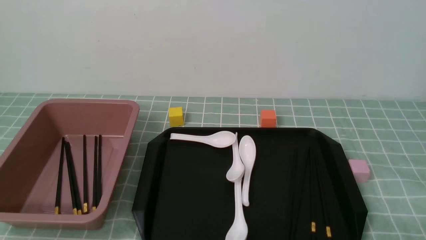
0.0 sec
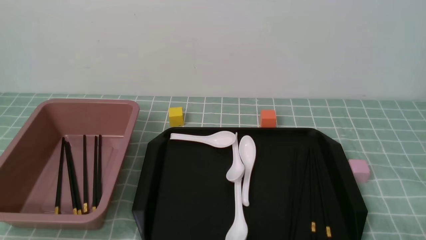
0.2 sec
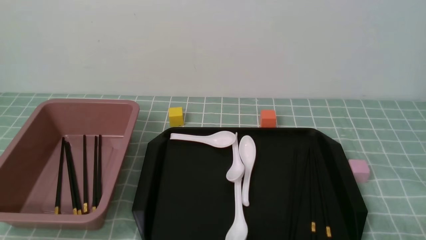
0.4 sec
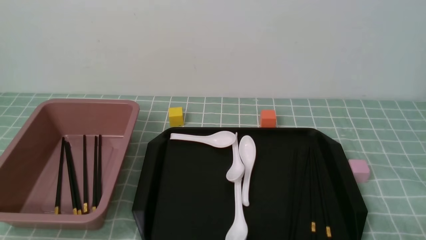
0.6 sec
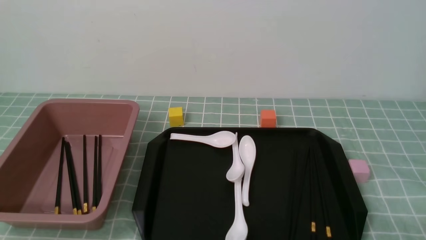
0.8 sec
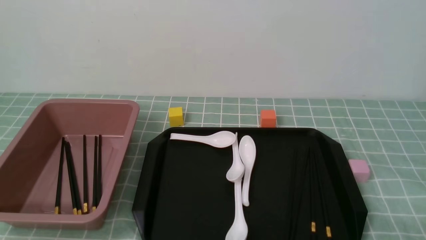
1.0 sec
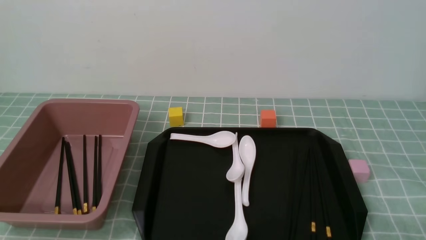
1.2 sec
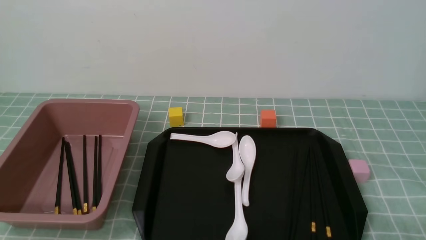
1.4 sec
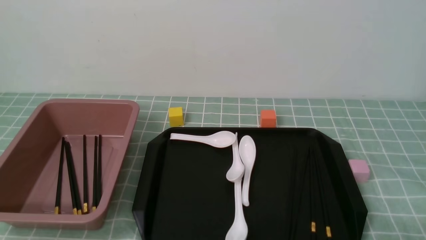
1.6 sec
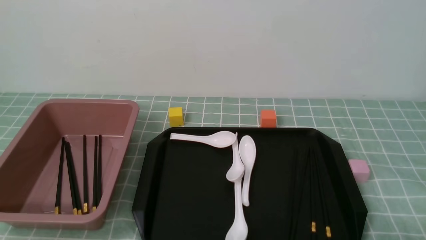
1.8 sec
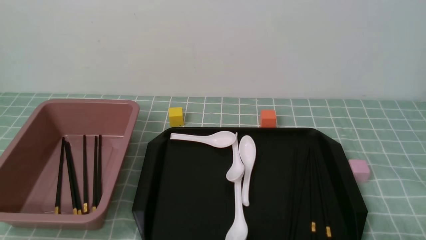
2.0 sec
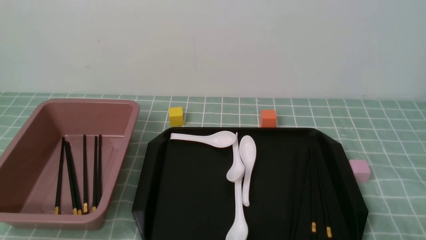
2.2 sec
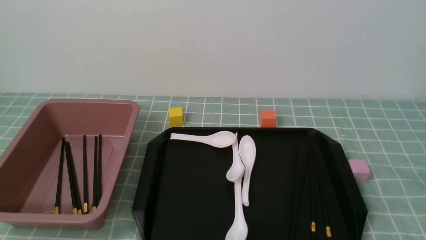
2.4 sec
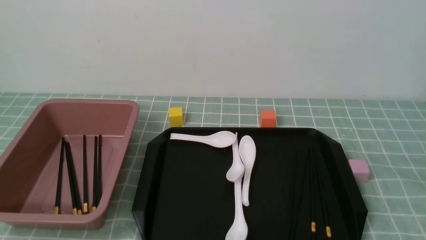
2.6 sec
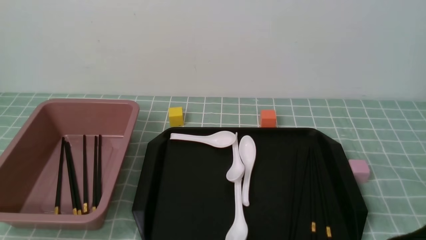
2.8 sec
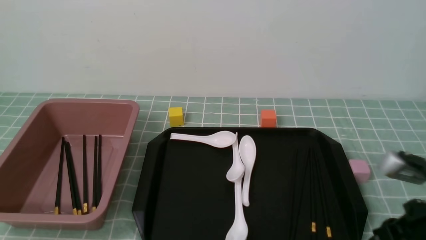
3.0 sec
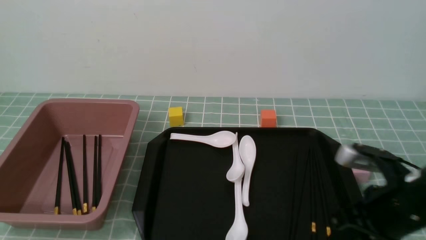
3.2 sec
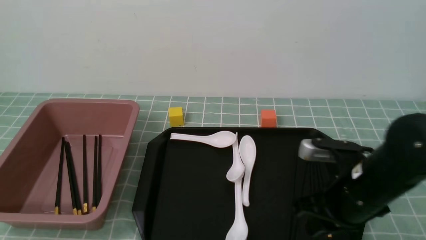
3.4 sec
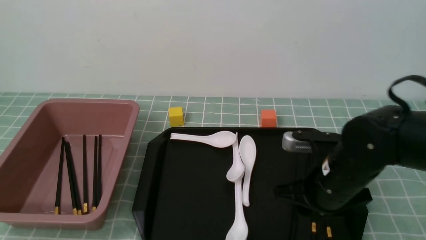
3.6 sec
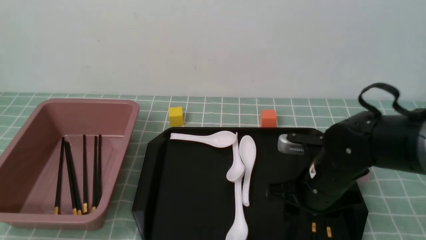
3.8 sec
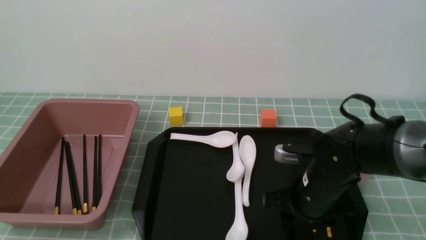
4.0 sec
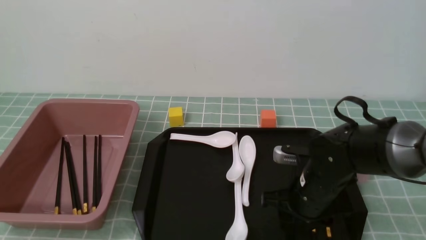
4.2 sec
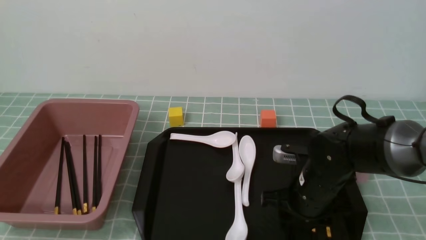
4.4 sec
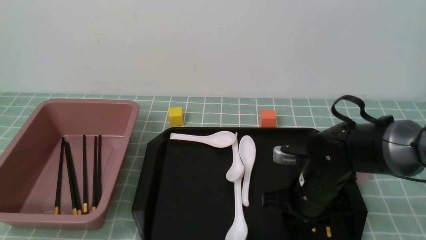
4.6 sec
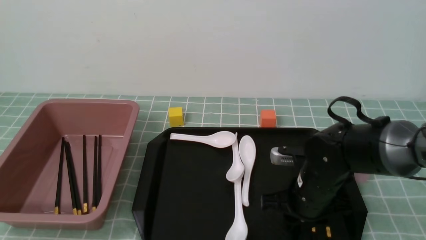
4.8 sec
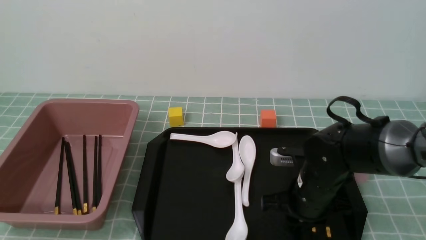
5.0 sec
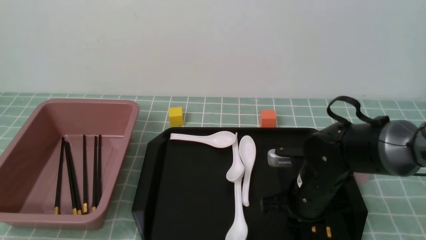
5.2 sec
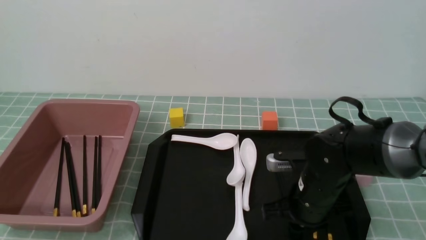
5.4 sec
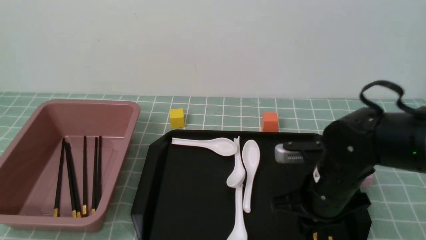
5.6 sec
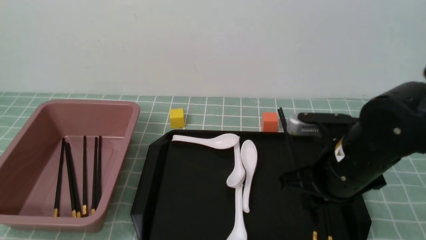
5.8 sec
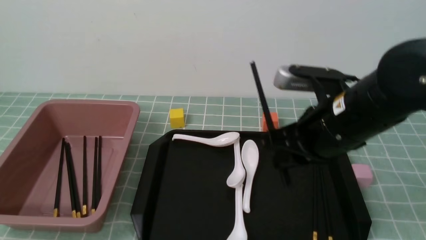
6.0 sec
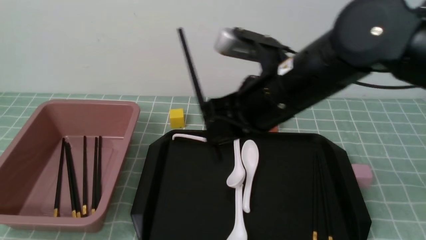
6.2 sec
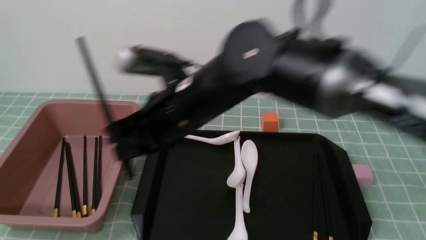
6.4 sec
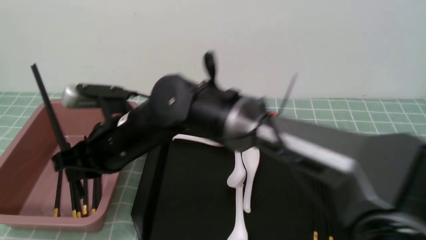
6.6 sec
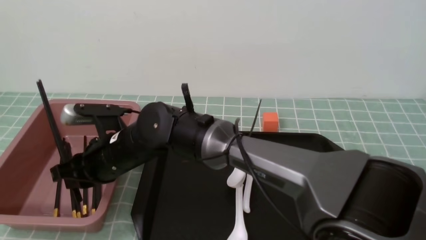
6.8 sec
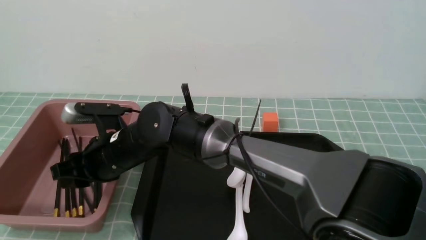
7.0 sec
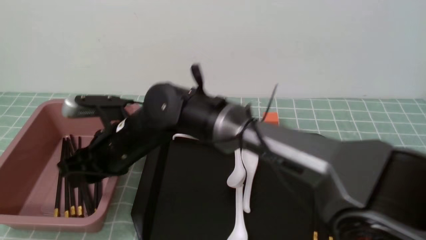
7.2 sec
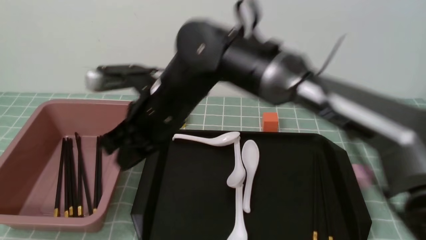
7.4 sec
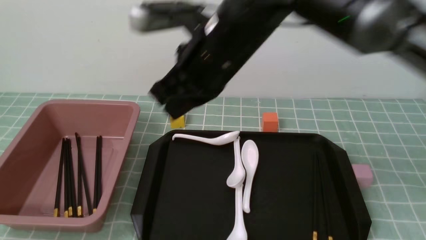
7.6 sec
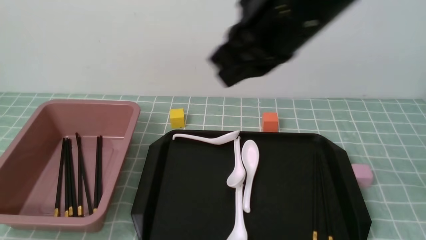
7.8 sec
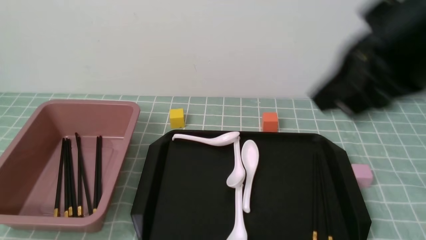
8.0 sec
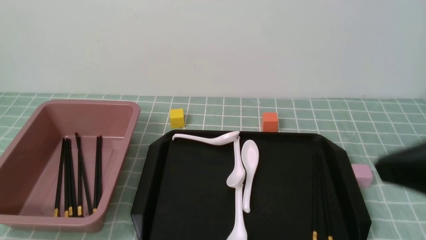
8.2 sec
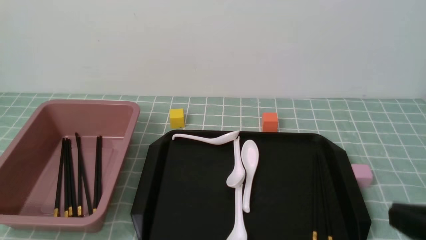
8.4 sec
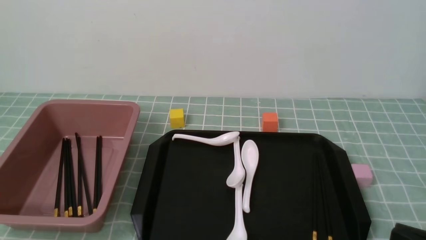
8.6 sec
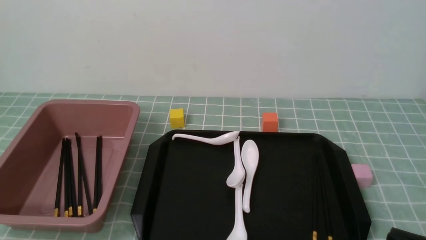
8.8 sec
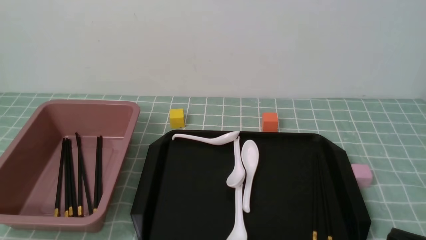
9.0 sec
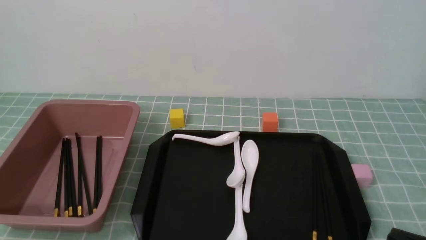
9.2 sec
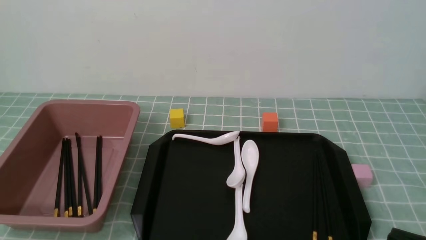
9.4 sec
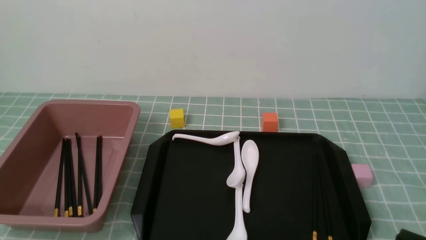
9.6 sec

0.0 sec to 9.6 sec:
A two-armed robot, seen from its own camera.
Step, 0.0 sec to 5.8 sec: use the right arm to grab a pair of chopsticks.
Step, 6.0 sec to 7.2 sec: use the right arm to put the chopsticks into the lunch box.
1.6 sec to 3.2 sec: The right gripper heads forward and to the left, covering some 20 cm, and closes.
3.2 sec to 4.8 sec: The right gripper travels downward, to the left and forward by some 15 cm, and opens its fingers.
4.8 sec to 6.4 sec: The right gripper shifts about 25 cm to the left and upward.
6.4 sec to 8.0 sec: The right gripper travels to the right, upward and backward by approximately 30 cm, and opens, then closes again.
8.0 sec to 9.6 sec: The right gripper is displaced downward, to the right and backward by roughly 25 cm.

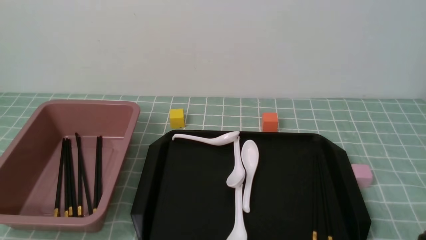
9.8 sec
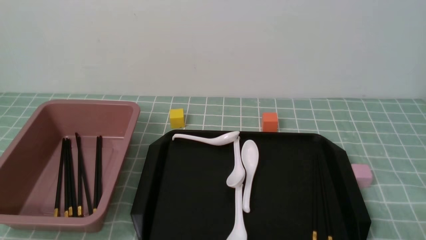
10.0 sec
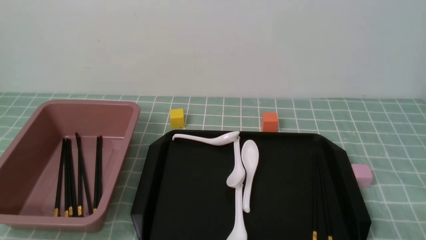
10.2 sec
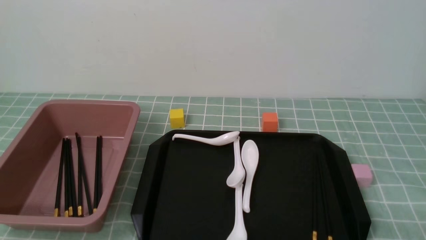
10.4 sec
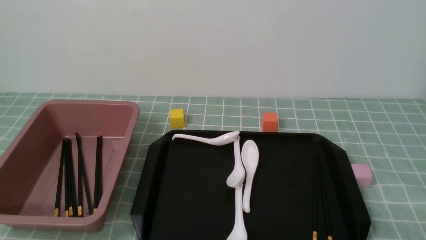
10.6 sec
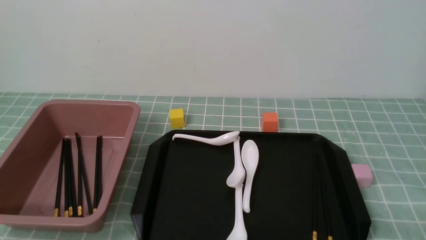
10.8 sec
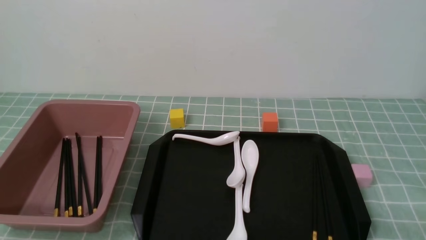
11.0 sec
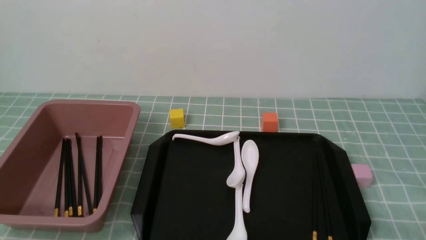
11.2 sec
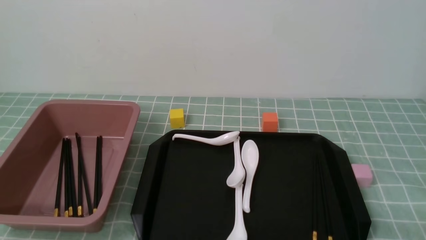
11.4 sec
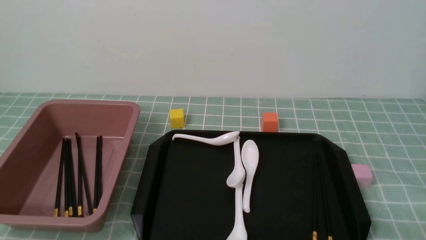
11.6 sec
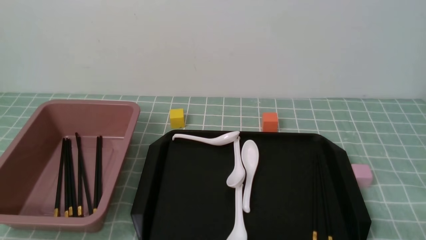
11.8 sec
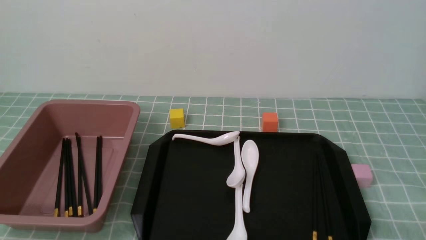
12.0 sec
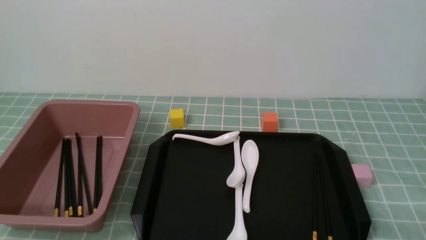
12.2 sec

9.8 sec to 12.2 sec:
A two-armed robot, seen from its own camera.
11.0 sec to 12.2 sec: The two grippers keep their place.
